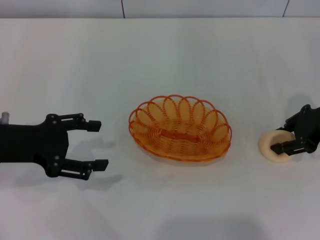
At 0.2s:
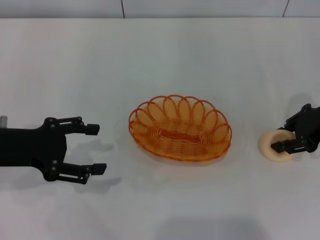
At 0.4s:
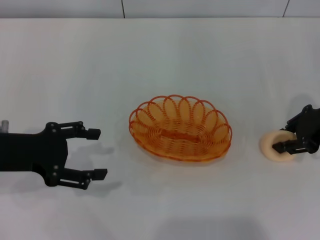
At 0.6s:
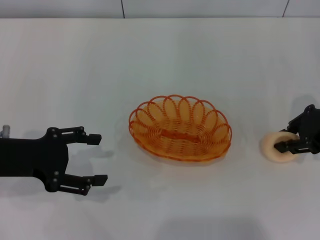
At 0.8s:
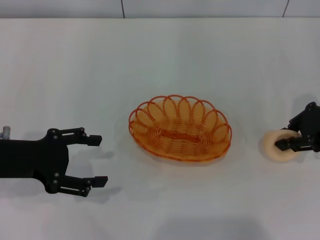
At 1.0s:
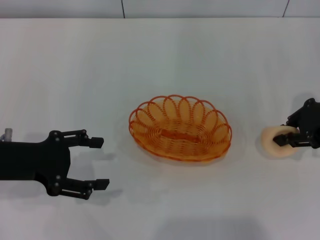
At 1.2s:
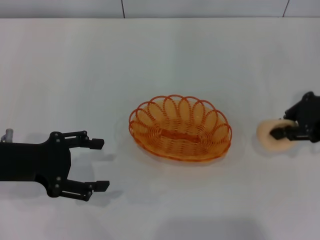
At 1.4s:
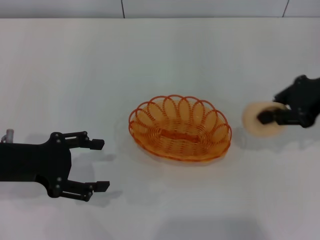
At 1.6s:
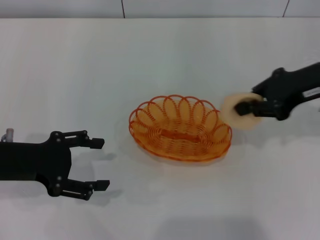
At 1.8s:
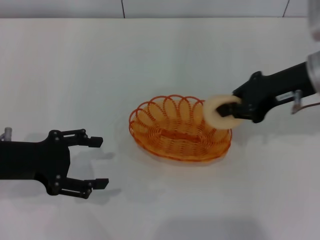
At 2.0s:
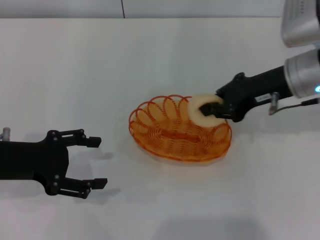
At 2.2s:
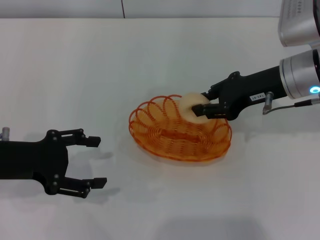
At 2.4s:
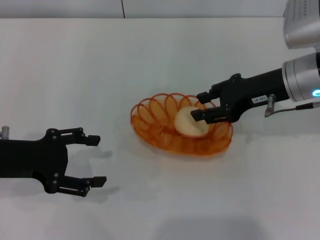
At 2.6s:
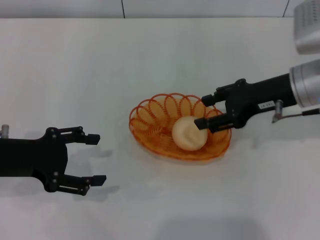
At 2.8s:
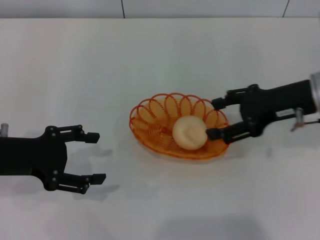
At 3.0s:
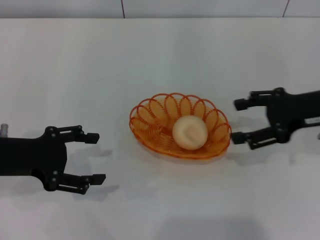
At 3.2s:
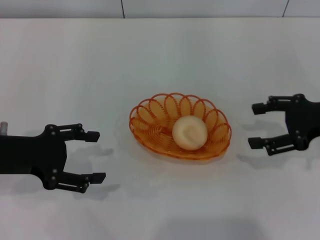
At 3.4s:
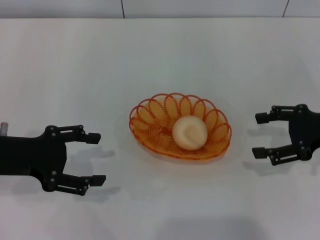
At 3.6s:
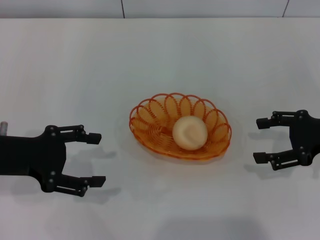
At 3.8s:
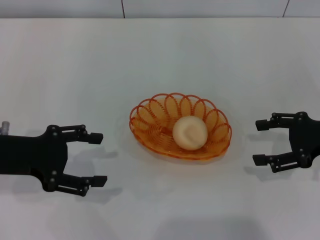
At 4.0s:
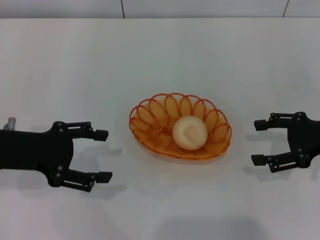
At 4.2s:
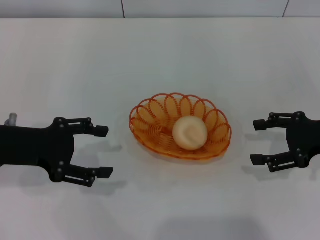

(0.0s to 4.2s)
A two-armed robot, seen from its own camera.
Step, 1.4s - 2.6s: Place the egg yolk pastry into the basket with the right gripper.
0.0s - 1.4s: The right gripper goes some 5 cm upward, and closes its fingers.
1.4s - 2.8s: The right gripper moves roughly 5 cm, and opens its fingers.
2.8s - 4.2s: The right gripper moves to the right, about 10 cm.
